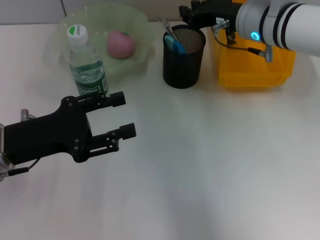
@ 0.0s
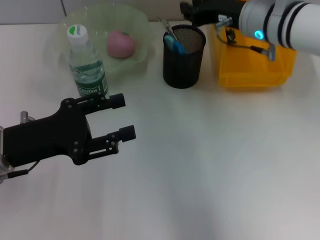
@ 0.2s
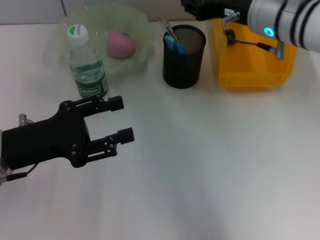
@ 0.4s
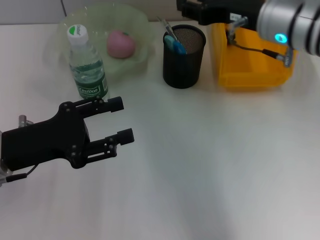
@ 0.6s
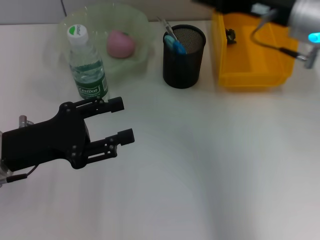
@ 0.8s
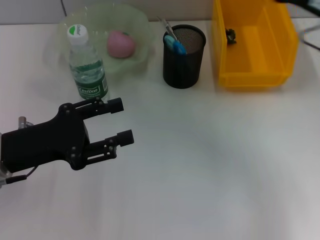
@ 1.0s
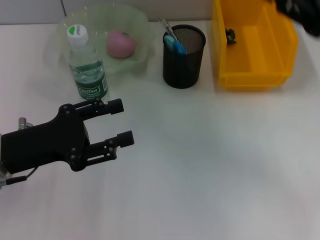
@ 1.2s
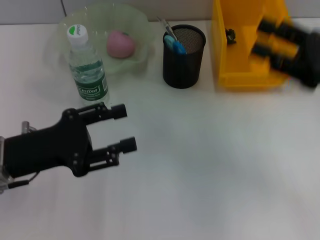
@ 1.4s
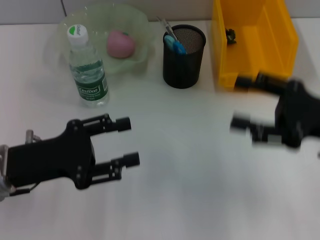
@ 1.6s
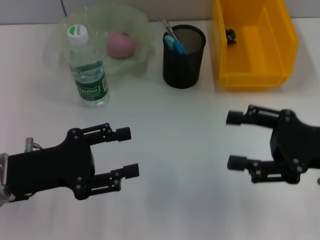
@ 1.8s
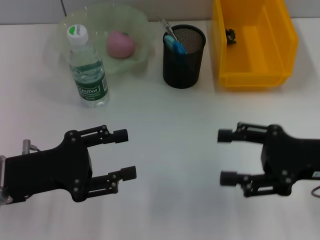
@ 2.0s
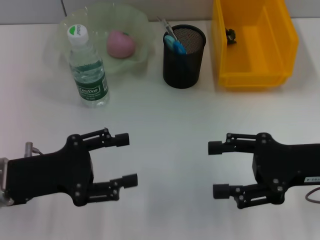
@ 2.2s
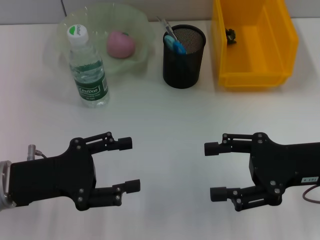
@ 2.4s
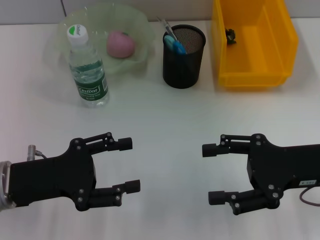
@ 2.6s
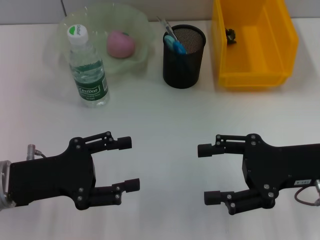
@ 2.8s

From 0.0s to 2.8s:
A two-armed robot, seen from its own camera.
From 0.0s to 1.4s: The right gripper moves to the right and backward, roughly 20 cm, and opens up.
From 1.4s to 2.8s: The right gripper changes place by roughly 5 cm.

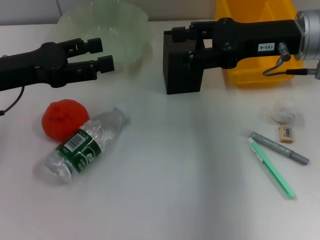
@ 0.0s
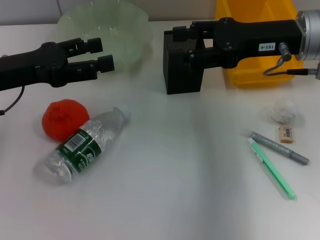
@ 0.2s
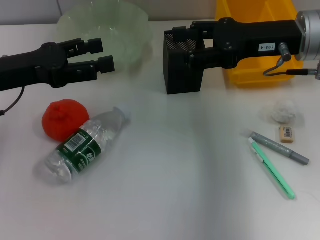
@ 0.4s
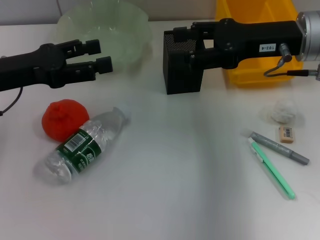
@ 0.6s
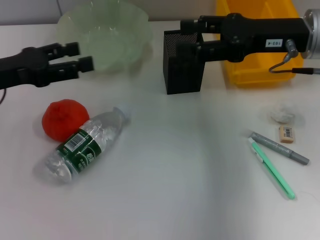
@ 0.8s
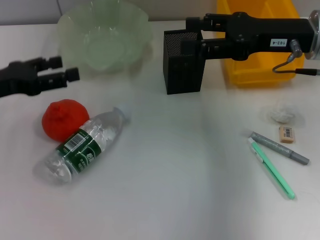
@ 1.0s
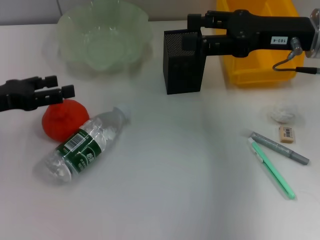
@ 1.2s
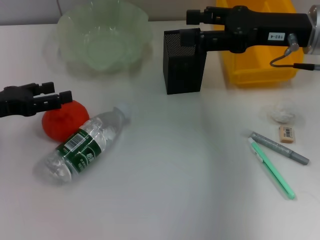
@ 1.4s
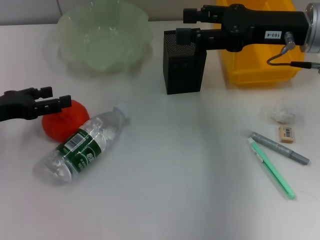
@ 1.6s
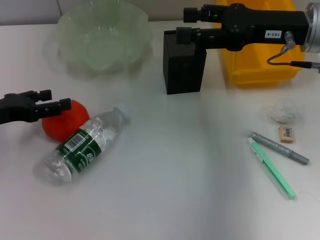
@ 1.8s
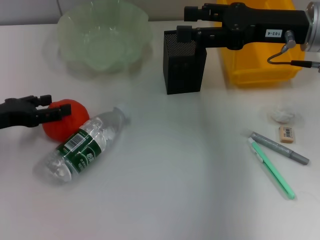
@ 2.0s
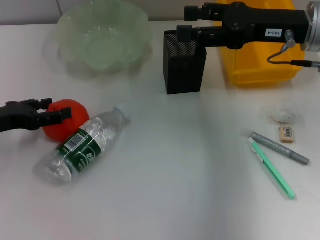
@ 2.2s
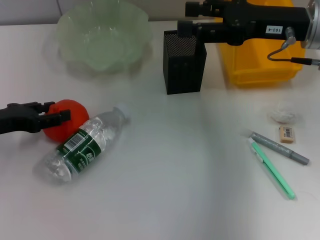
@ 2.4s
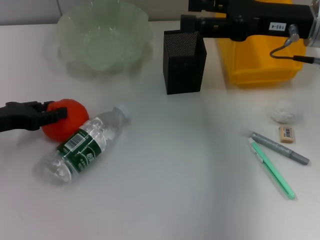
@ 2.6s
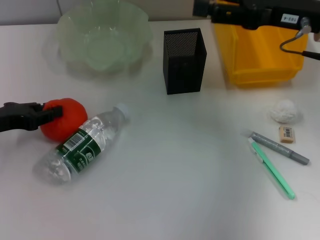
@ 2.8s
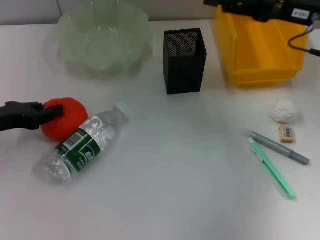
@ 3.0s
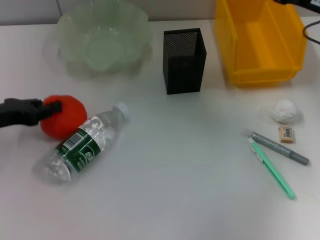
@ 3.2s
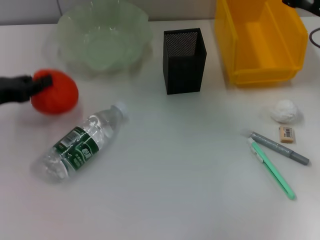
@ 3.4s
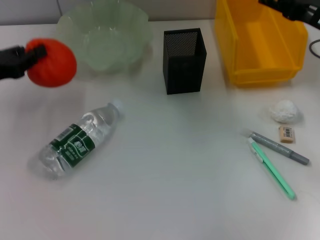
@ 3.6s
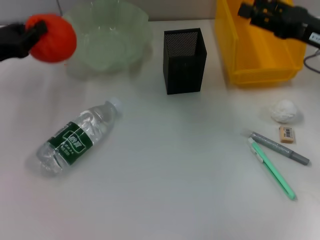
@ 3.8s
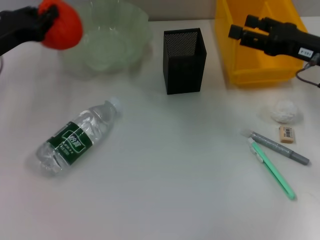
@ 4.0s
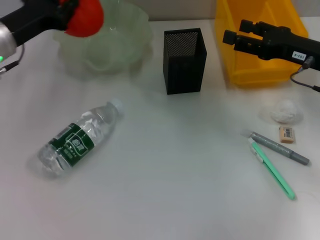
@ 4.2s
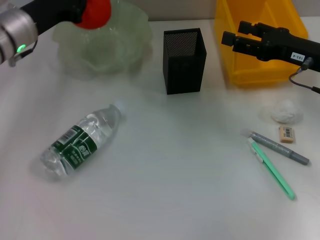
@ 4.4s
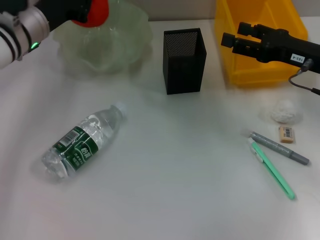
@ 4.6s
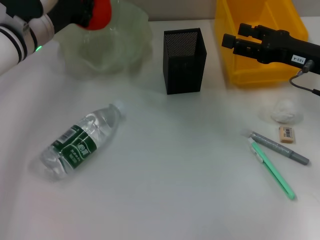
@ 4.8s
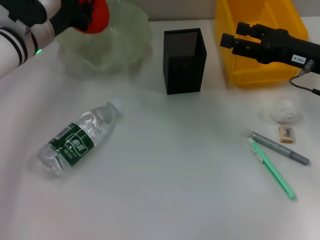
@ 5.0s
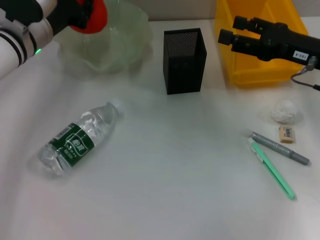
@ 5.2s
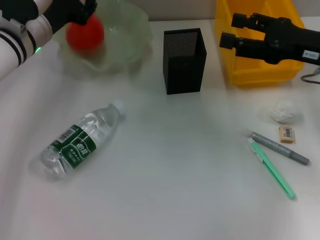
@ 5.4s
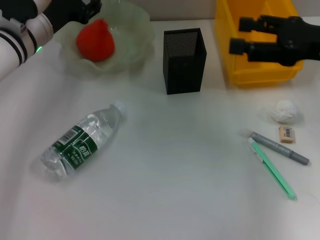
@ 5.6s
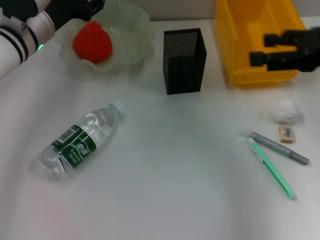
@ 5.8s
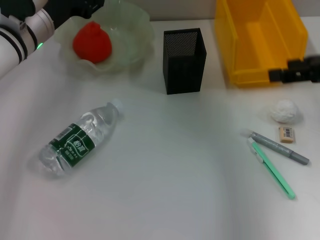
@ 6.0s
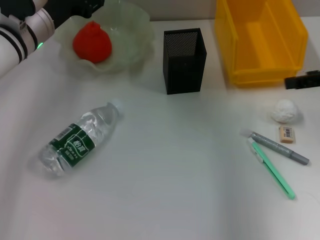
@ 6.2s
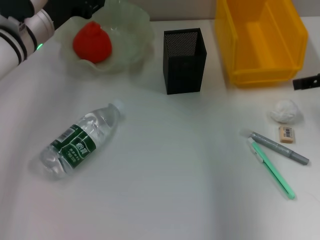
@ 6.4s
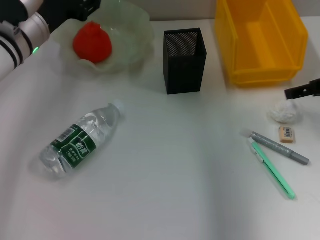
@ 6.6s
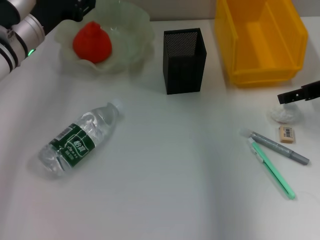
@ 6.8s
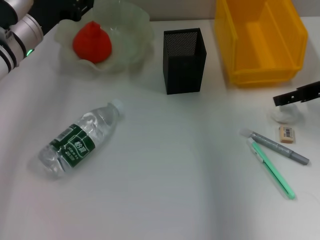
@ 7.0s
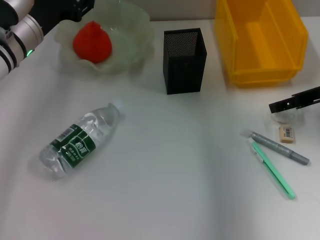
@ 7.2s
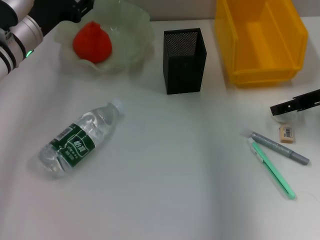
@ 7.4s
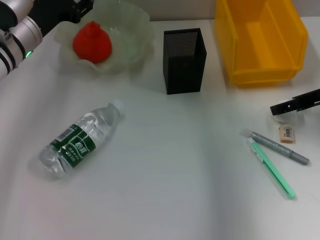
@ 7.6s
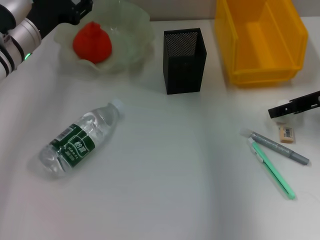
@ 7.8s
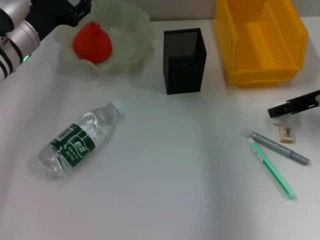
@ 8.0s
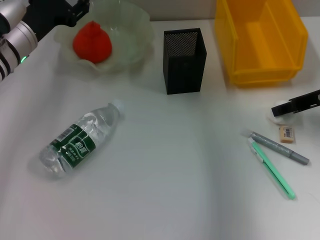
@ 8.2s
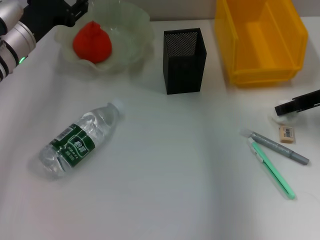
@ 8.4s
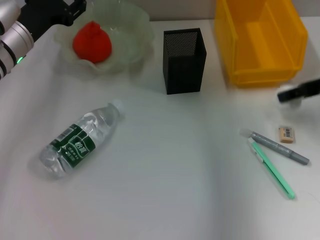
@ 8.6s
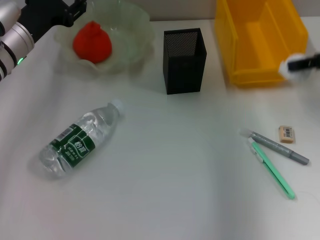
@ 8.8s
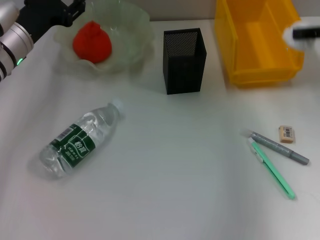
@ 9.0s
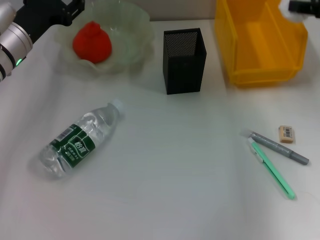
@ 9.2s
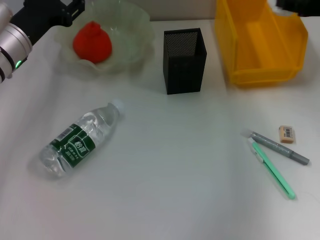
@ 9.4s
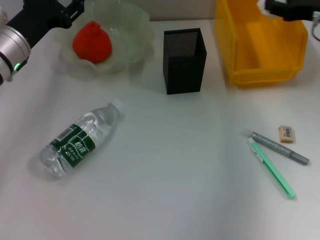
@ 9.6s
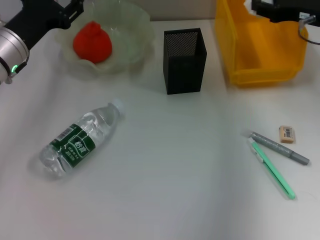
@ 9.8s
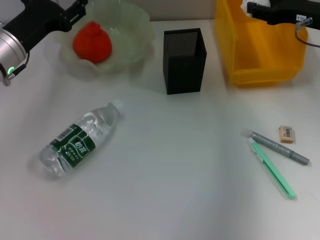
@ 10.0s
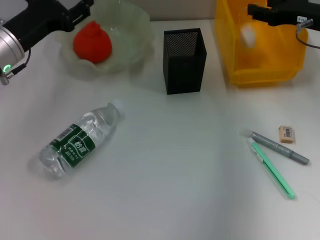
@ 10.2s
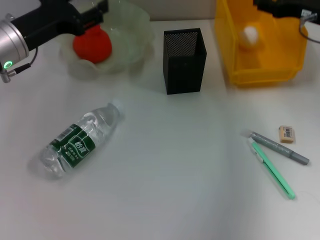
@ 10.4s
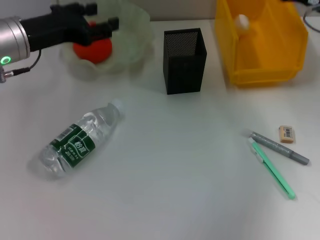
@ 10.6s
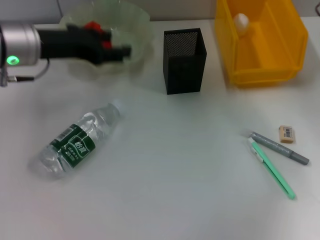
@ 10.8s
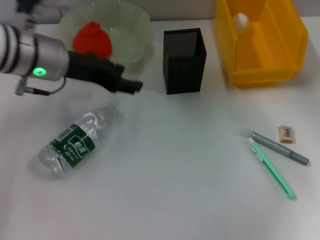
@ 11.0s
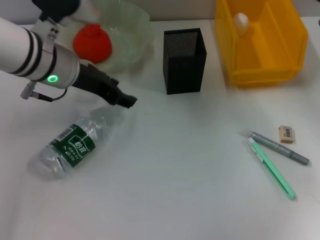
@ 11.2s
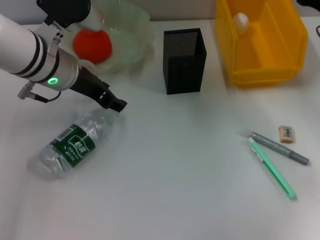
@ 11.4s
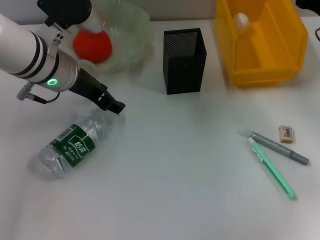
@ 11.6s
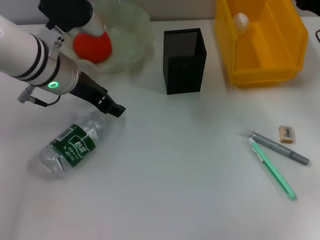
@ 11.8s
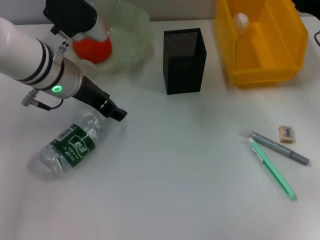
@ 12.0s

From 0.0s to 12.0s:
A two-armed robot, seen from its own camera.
Step, from 0.0s to 3.2s: Grab the orange with the left hand.
Step, from 3.4s to 5.4s: Place the orange into the fruit bowl with the left hand.
Step, from 5.6s to 8.2s: Grab the paper ball with the right hand.
Step, from 8.4s to 10.2s: Place the paper ball into the trash can with the right hand.
From 0.0s to 1.6s: The left gripper heads downward and to the left, covering roughly 10 cm.
From 1.6s to 3.0s: The left gripper closes.
From 3.0s to 4.4s: The right gripper heads downward, covering some 5 cm. The left gripper heads forward and to the right, covering roughly 15 cm.
From 4.4s to 6.0s: The right gripper goes approximately 10 cm upward, while the left gripper opens its fingers.
From 6.0s to 7.6s: The right gripper travels downward by approximately 5 cm.
From 7.6s to 9.0s: The right gripper shifts about 5 cm upward, and closes up.
From 9.0s to 10.4s: The right gripper heads downward and forward, covering about 10 cm.
From 10.4s to 12.0s: The left gripper is displaced to the right by some 10 cm. Meanwhile the right gripper shifts by about 5 cm.

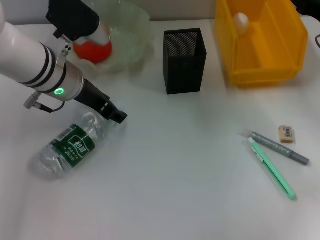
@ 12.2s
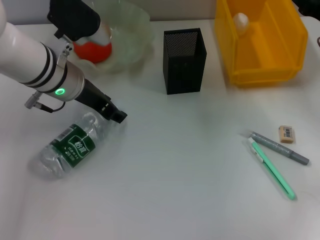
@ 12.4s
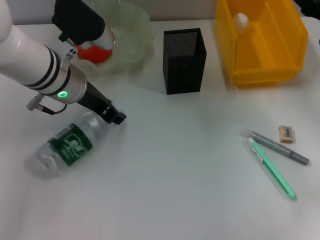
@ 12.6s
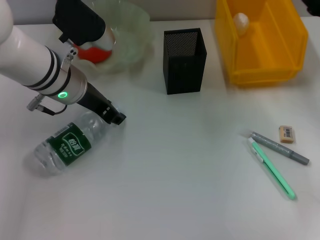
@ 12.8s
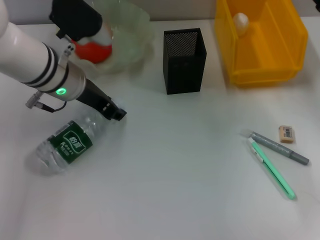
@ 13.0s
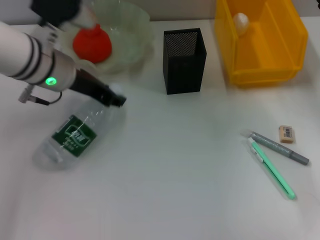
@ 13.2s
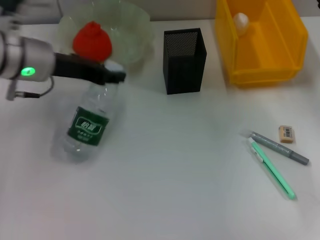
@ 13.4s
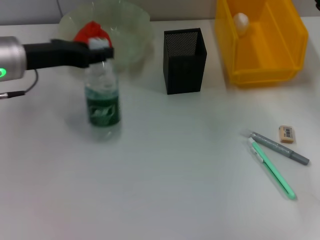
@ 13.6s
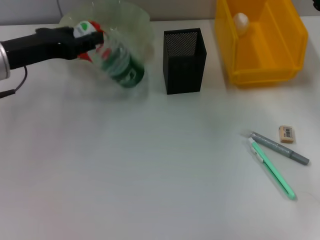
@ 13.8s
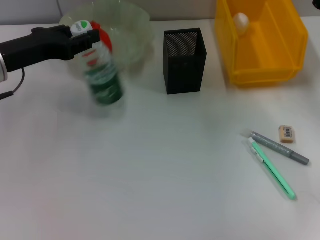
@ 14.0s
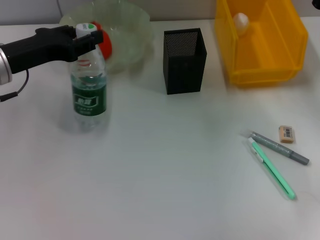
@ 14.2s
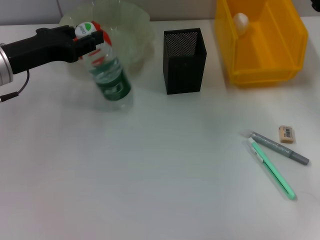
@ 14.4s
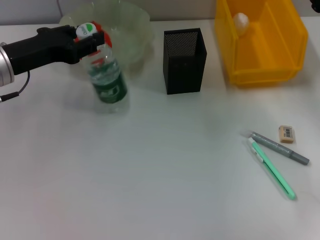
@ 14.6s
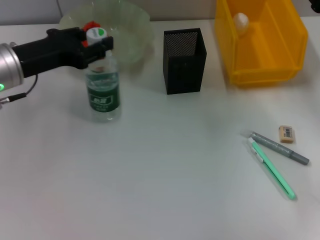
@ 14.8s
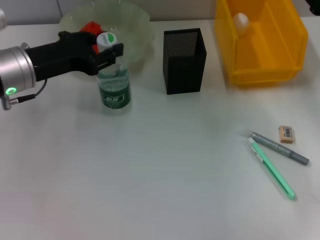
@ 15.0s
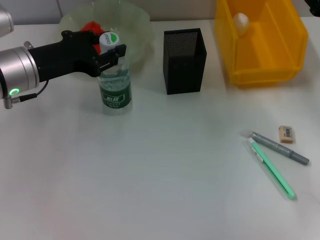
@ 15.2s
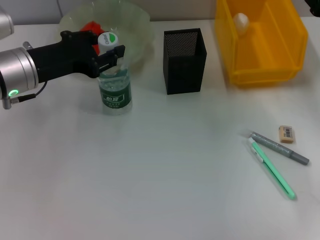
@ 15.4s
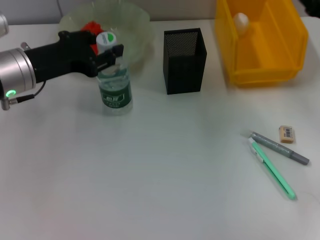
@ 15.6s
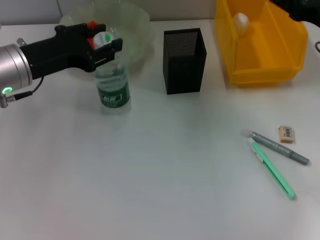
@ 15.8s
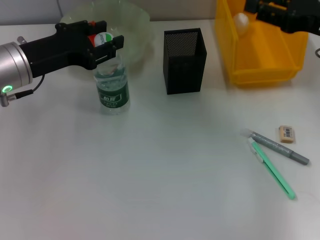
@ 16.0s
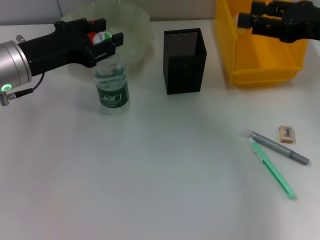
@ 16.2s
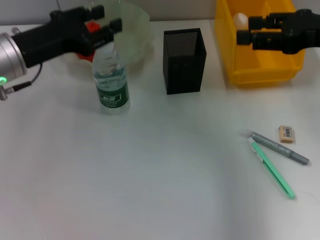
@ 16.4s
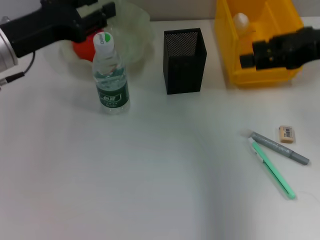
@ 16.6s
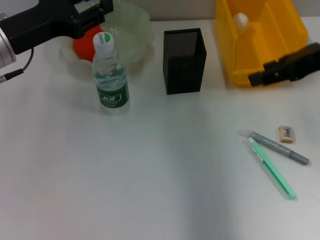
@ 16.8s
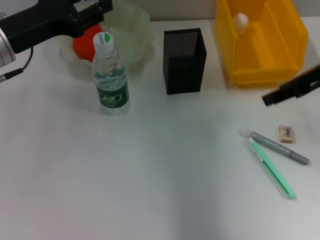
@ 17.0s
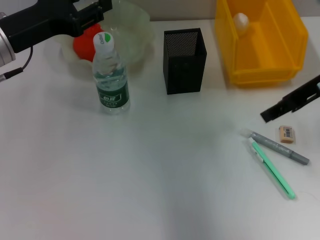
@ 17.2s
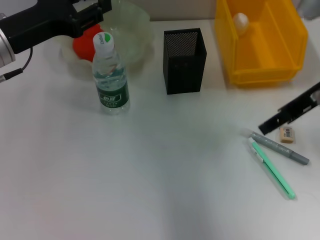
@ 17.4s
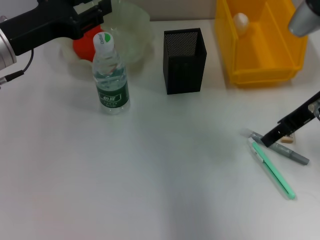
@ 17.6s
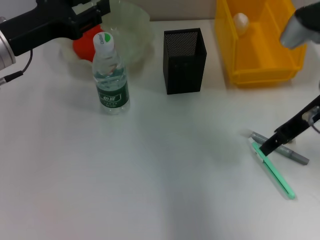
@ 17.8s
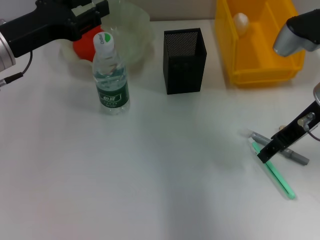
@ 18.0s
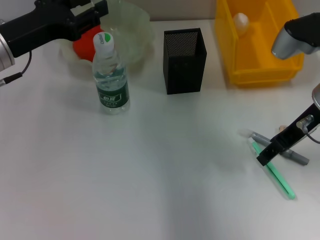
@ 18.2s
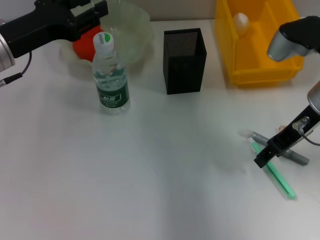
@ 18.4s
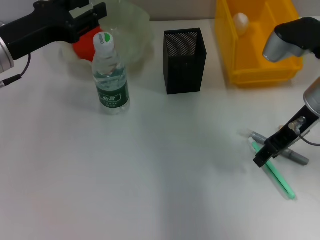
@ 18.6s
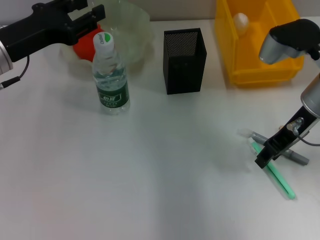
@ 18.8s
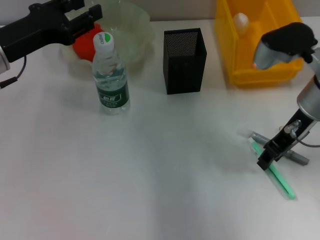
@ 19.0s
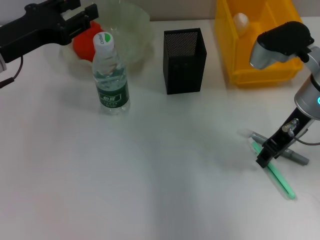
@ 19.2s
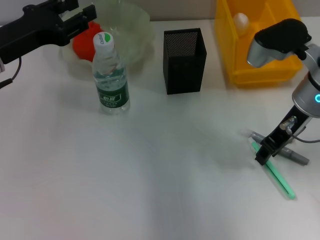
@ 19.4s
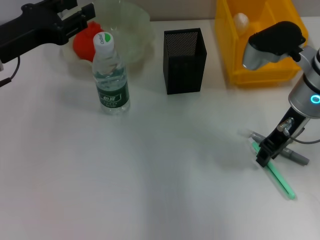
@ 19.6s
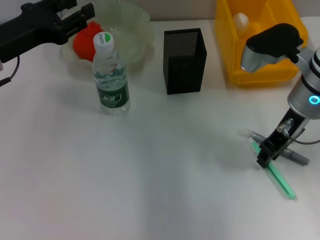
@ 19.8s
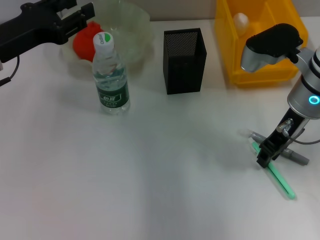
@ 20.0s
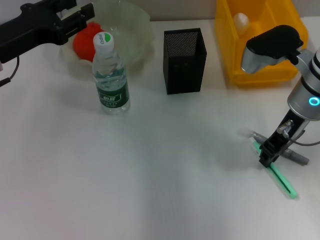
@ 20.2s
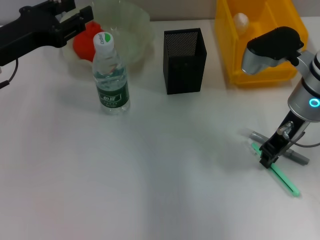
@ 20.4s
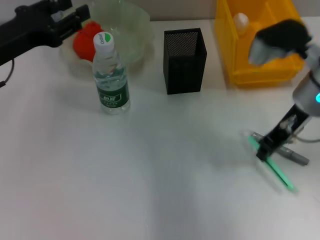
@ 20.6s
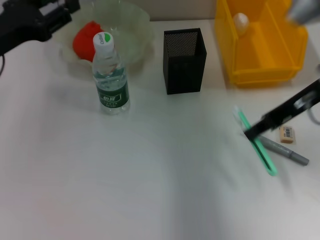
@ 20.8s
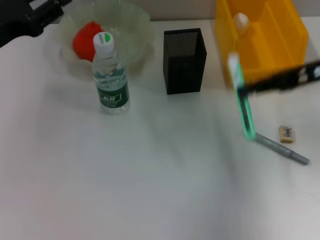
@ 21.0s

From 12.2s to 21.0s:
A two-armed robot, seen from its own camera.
Step, from 13.2s to 16.2s: Place the water bottle on the table with the left hand.
Step, from 16.4s to 20.4s: Grab the blue utility knife with the right hand.
From 12.2s to 13.6s: The left gripper moves to the left, approximately 10 cm, and closes its fingers.
From 15.2s to 16.6s: The right gripper shifts about 10 cm upward.
From 16.6s to 18.0s: The right gripper travels downward by roughly 5 cm.
From 18.0s to 19.6s: The grippers make only small movements.
From 19.6s to 21.0s: The right gripper shifts roughly 10 cm to the right and upward, and closes its fingers.
